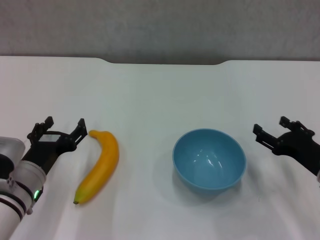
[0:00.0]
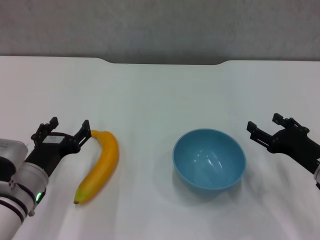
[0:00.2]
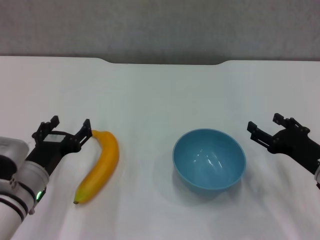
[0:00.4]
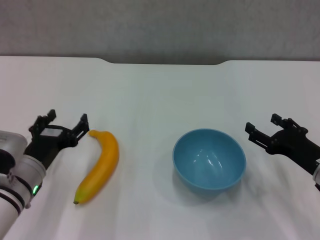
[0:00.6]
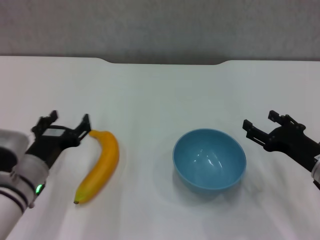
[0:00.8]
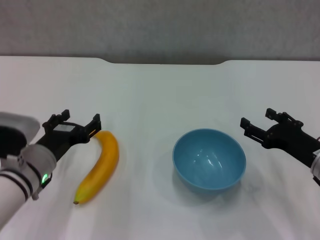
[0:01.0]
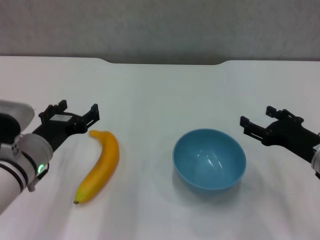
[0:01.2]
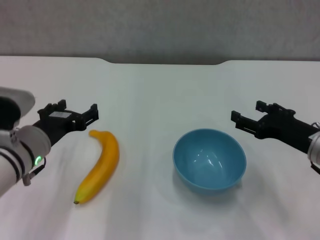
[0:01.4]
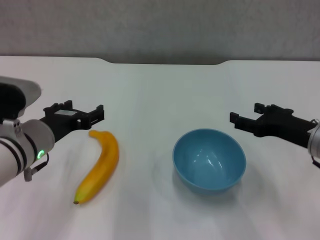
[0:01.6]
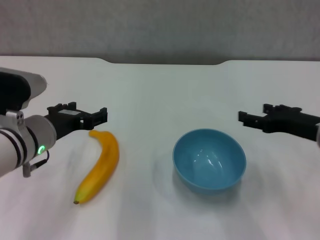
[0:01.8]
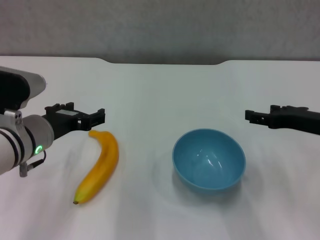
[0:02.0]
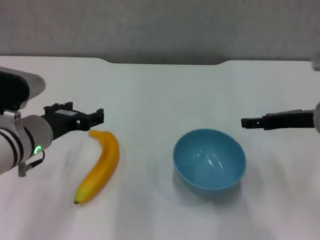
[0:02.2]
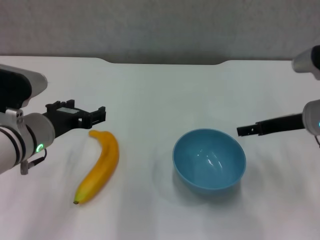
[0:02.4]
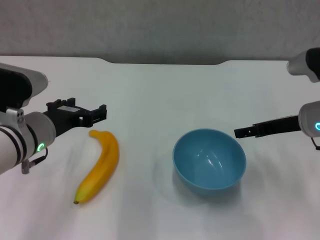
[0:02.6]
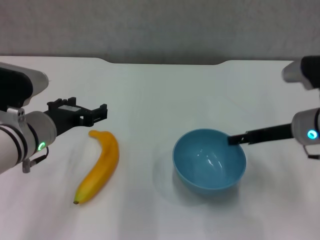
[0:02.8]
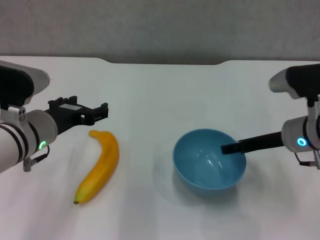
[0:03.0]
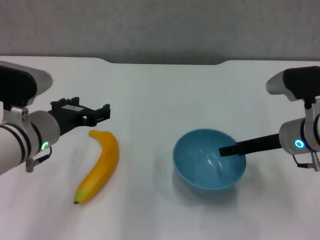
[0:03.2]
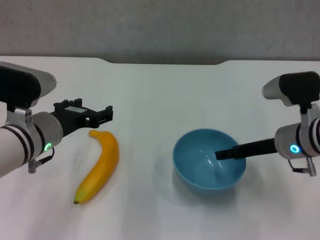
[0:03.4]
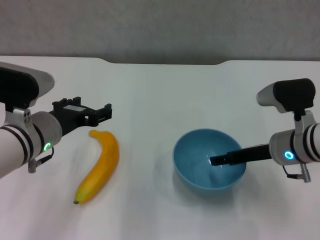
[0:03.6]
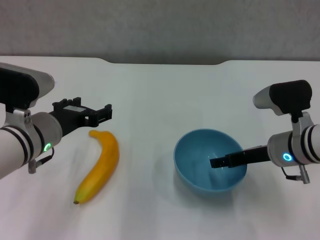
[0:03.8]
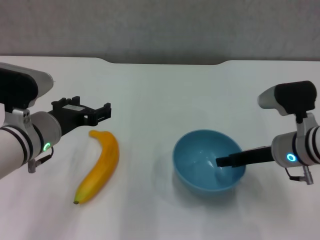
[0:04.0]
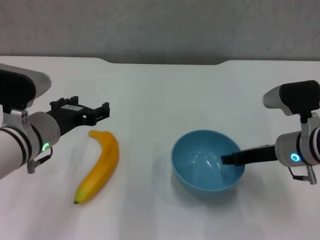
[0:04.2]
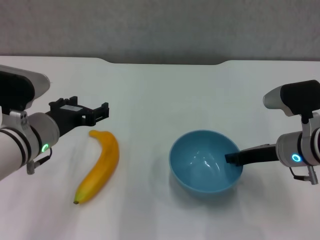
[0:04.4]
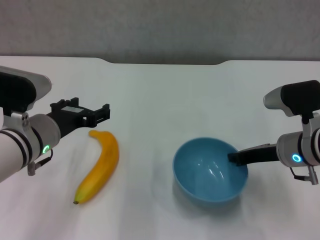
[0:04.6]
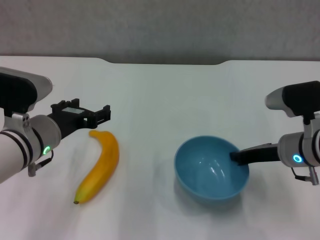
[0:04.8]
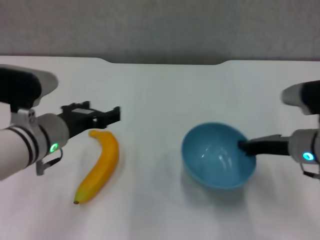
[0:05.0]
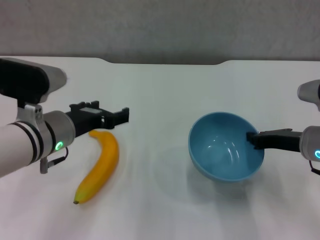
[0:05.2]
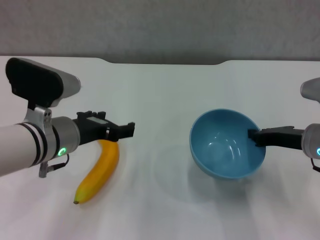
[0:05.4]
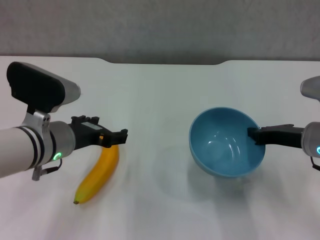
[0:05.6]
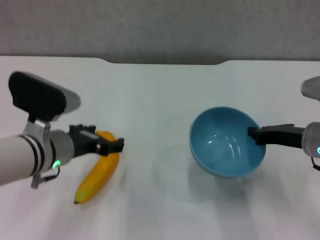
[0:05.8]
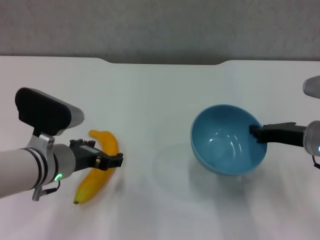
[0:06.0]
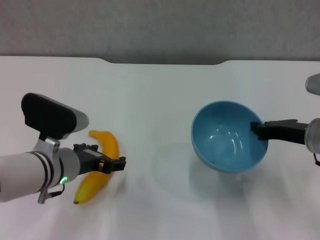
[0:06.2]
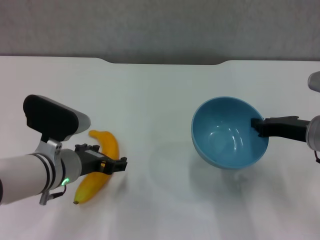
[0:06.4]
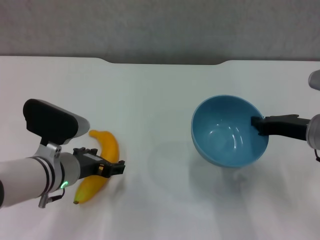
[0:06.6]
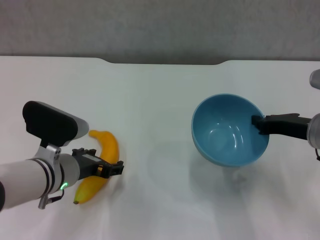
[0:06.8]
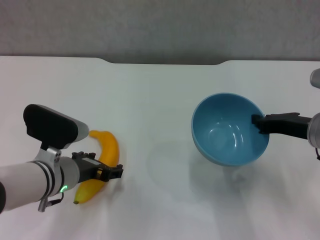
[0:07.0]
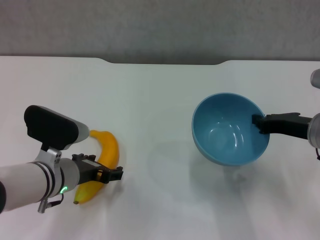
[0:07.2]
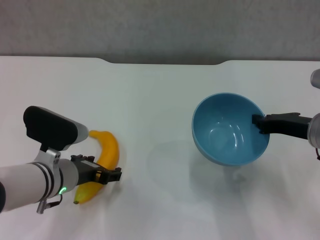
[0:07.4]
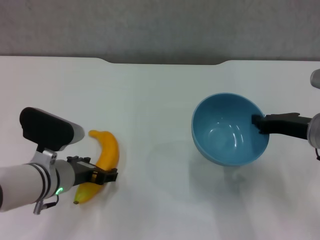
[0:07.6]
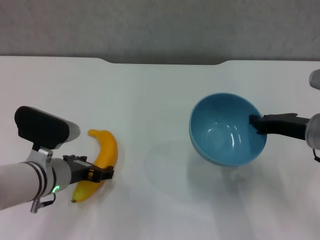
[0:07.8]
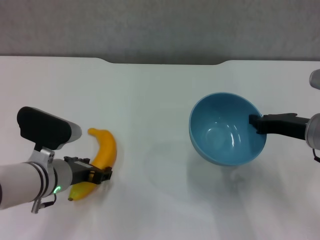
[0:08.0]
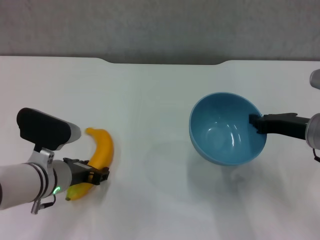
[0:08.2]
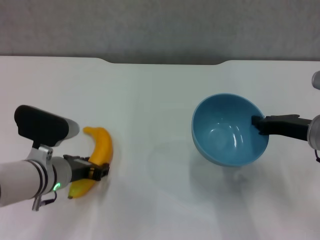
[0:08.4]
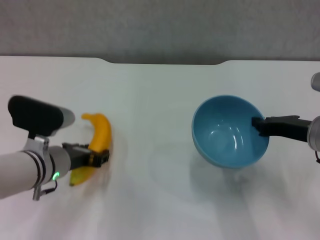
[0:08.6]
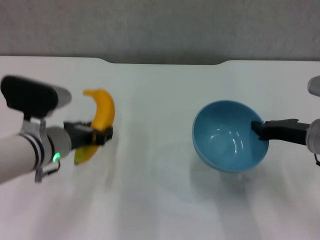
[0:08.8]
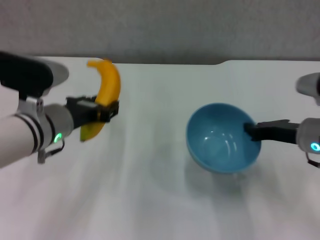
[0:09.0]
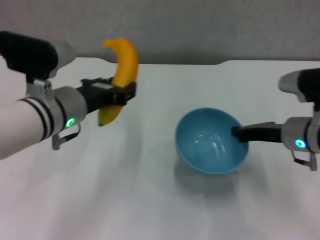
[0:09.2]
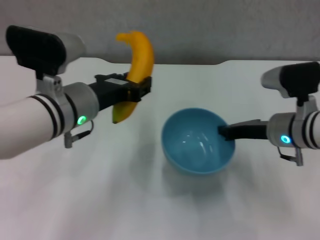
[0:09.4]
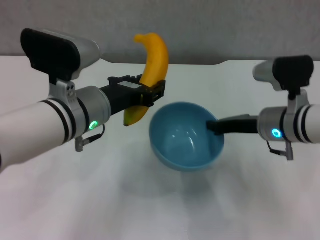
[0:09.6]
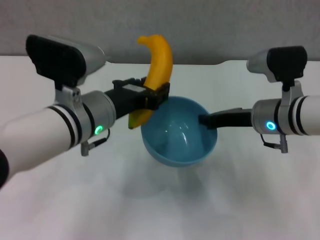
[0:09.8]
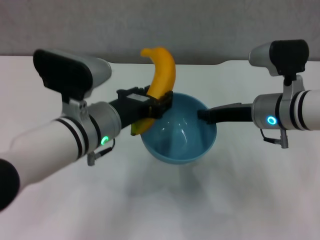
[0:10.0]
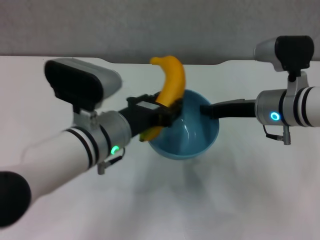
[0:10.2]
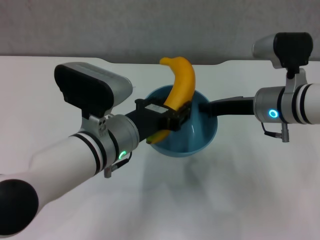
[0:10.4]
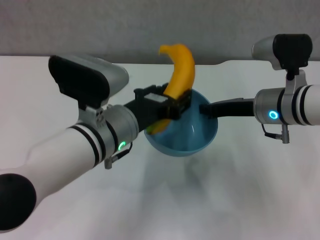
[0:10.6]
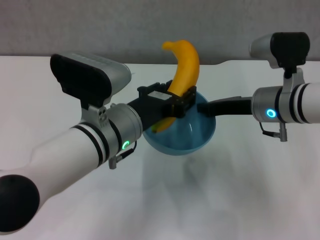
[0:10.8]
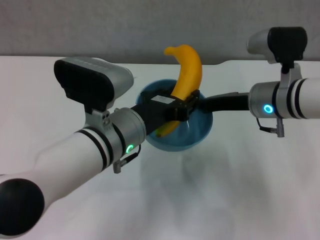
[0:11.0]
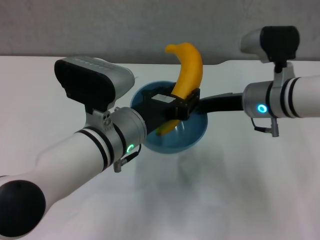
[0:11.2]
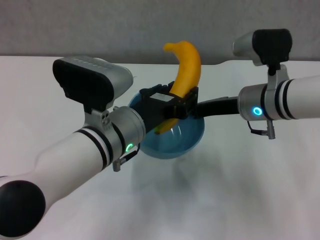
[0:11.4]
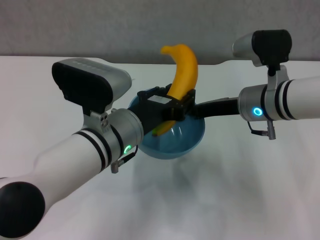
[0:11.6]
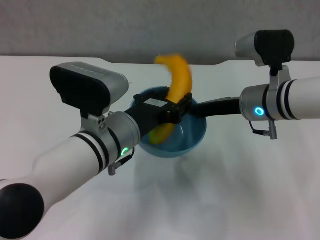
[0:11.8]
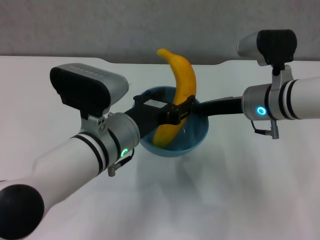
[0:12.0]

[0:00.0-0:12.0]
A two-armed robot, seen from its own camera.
Step, 0:00.0 to 0:04.6: Grasp the blue bowl with right gripper.
Step, 0:04.8 to 0:05.6: Lift the blue bowl with right gripper.
Step, 0:06.0 to 0:08.0: Grasp the banana with left gripper.
0:00.0 to 0:01.6: Both grippers move upward, about 10 cm.
0:01.6 to 0:03.0: The right gripper heads forward, covering some 5 cm.
0:03.0 to 0:04.4: The right gripper closes.
0:04.4 to 0:06.0: The right gripper closes up.
0:06.0 to 0:07.6: The grippers move only a little.
0:07.6 to 0:09.0: The left gripper travels upward by approximately 10 cm, and closes up.
0:09.0 to 0:10.4: The right gripper heads to the left, covering about 5 cm; the left gripper travels to the right by approximately 10 cm.
0:10.4 to 0:12.0: The left gripper opens.

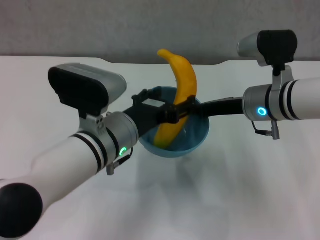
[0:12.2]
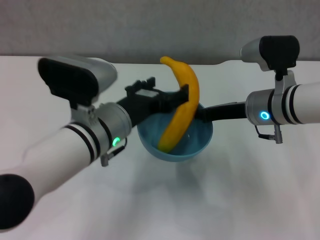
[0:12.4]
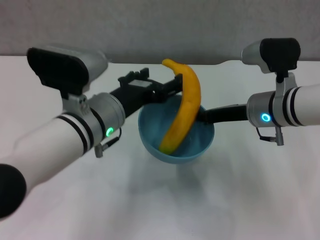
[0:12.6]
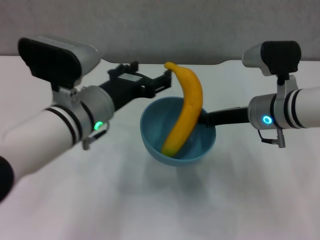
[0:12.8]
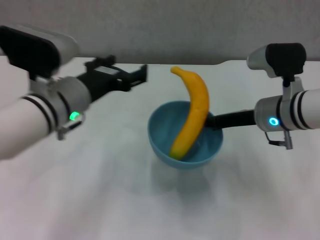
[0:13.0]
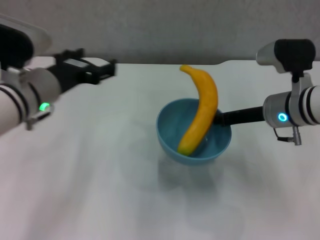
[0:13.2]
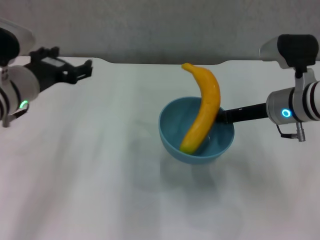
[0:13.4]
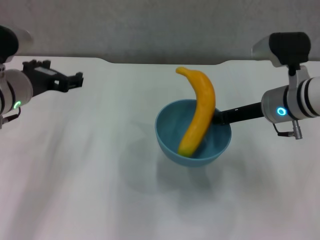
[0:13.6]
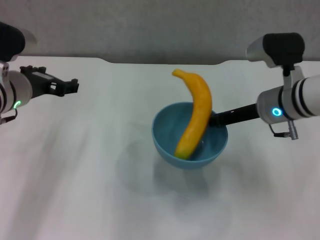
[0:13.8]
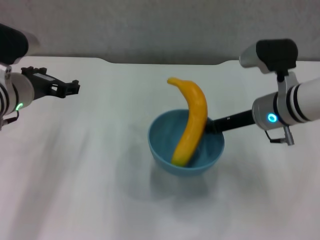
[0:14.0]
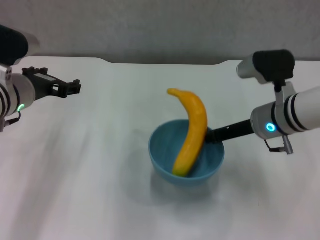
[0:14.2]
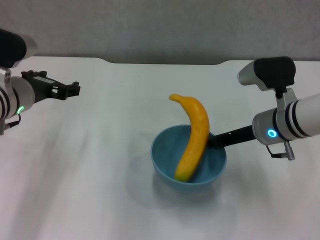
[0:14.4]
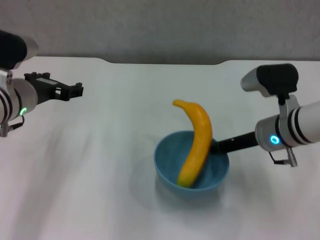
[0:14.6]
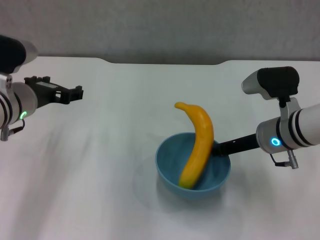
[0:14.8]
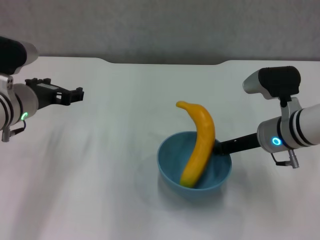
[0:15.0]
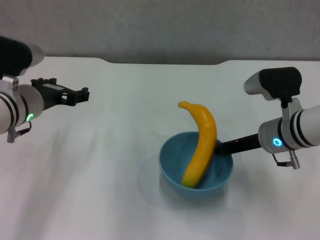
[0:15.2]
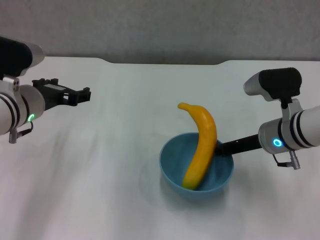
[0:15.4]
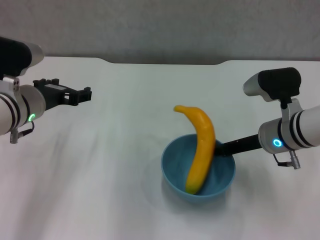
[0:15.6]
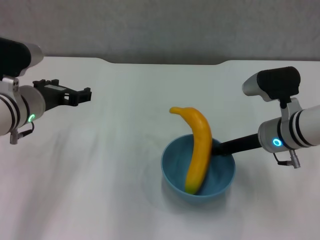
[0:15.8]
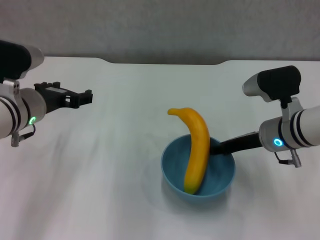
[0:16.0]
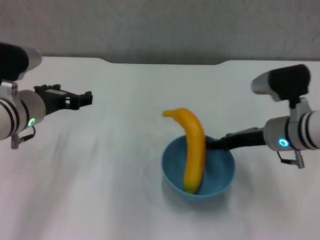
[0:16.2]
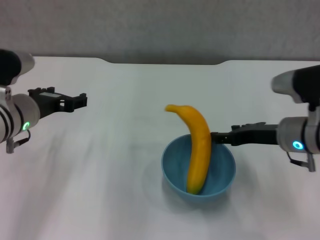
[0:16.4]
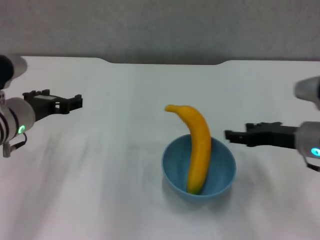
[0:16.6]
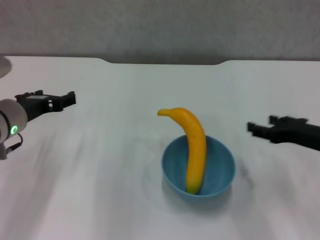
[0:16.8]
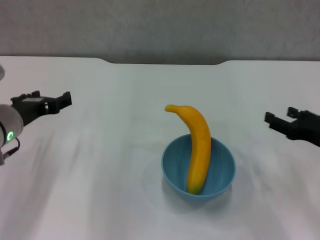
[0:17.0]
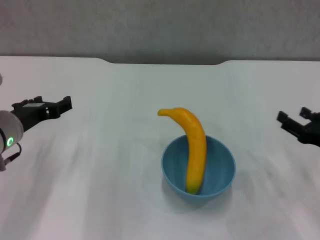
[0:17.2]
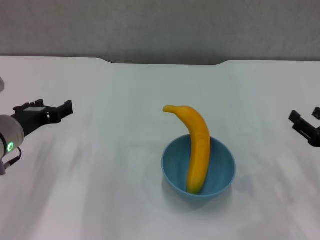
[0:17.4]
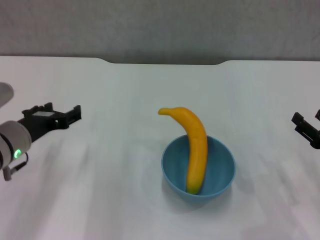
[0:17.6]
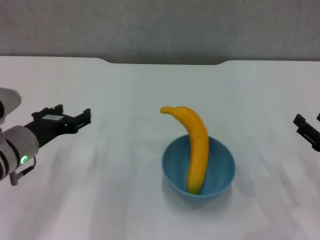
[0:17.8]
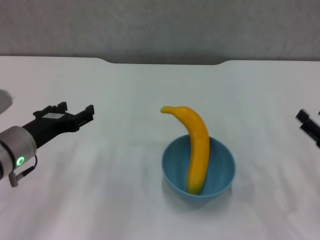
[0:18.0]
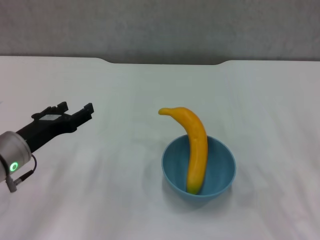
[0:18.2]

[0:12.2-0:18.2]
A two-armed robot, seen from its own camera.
Step, 0:12.4 to 0:16.4: Place the bowl on the table with right gripper.
0:12.2 to 0:13.8: The left gripper moves to the left and forward, some 15 cm.
0:15.2 to 0:16.6: The right gripper moves roughly 5 cm, and opens its fingers.
0:16.6 to 0:18.2: The left gripper is displaced backward by some 5 cm. Meanwhile the right gripper heads backward and to the right, covering roughly 15 cm.
